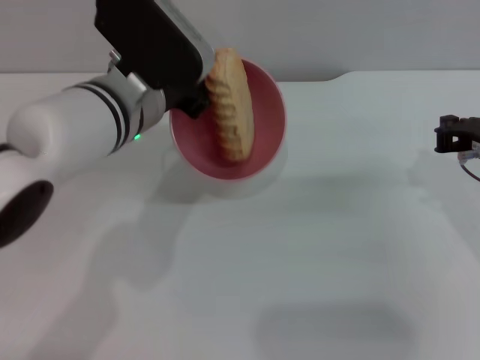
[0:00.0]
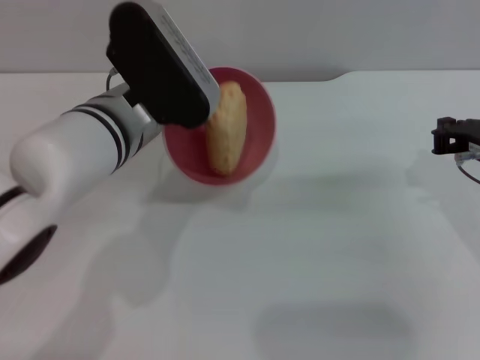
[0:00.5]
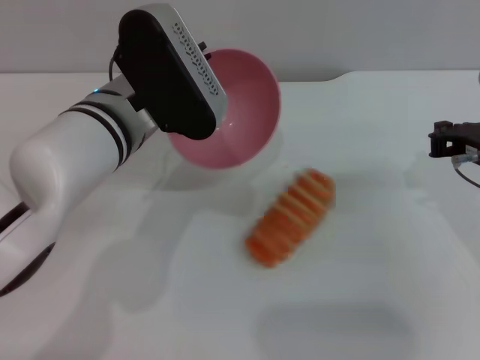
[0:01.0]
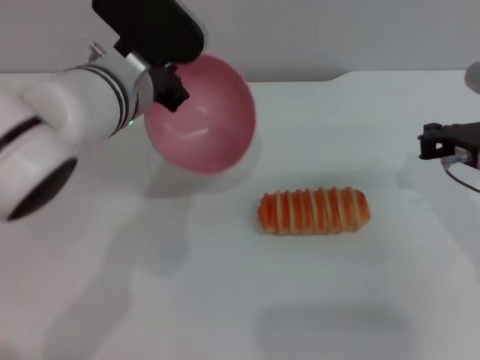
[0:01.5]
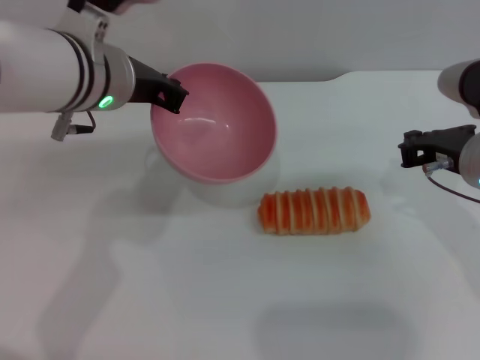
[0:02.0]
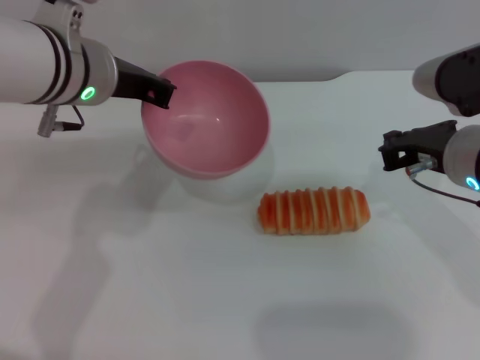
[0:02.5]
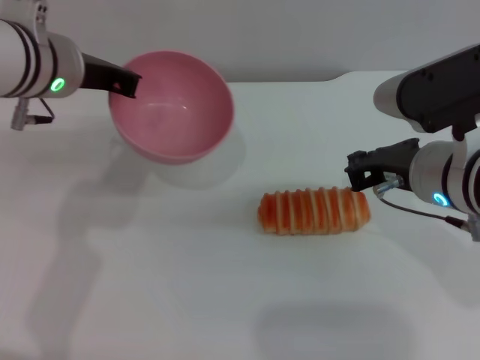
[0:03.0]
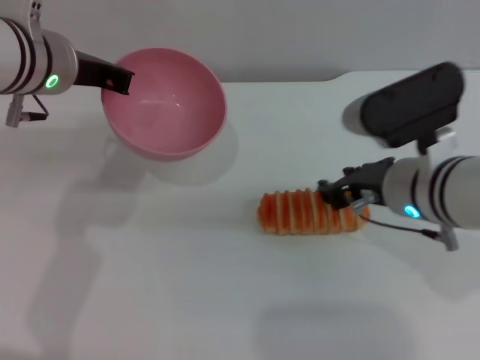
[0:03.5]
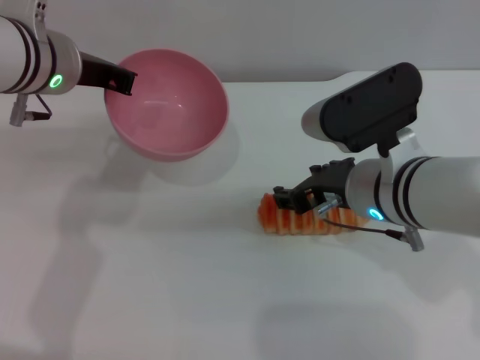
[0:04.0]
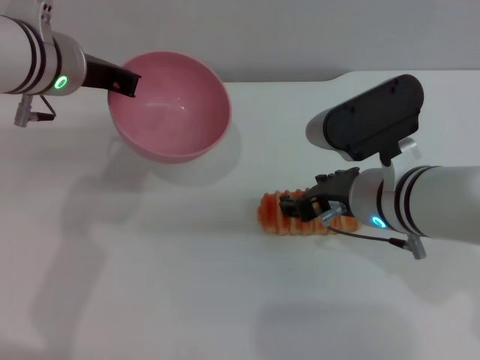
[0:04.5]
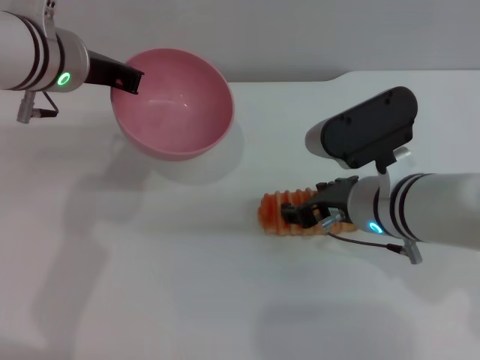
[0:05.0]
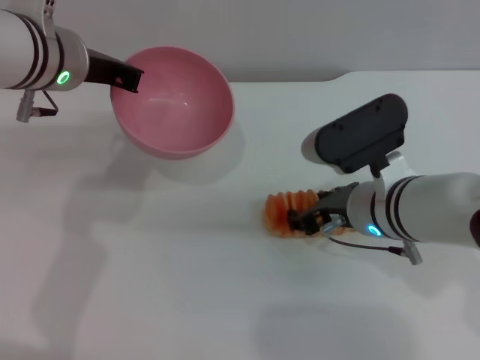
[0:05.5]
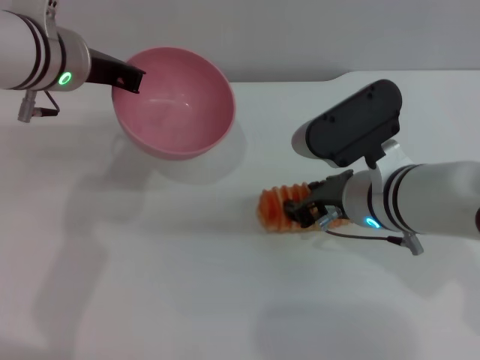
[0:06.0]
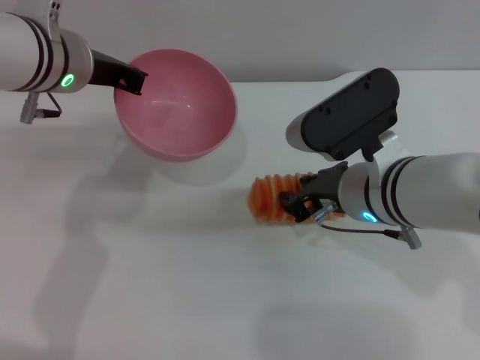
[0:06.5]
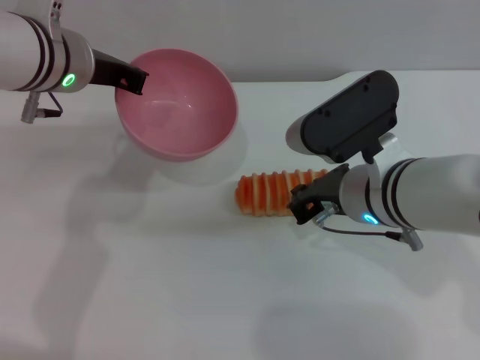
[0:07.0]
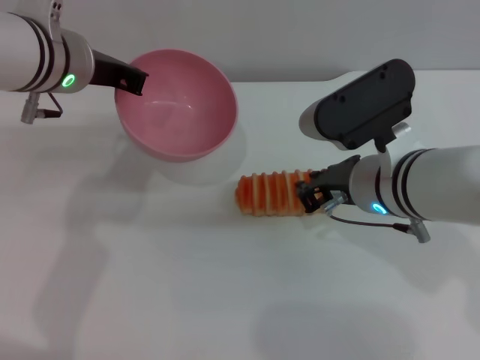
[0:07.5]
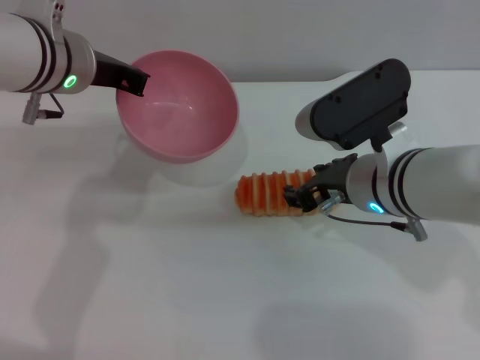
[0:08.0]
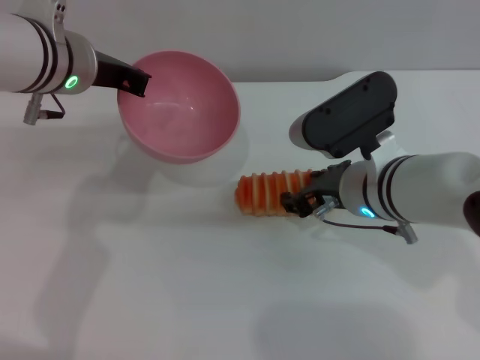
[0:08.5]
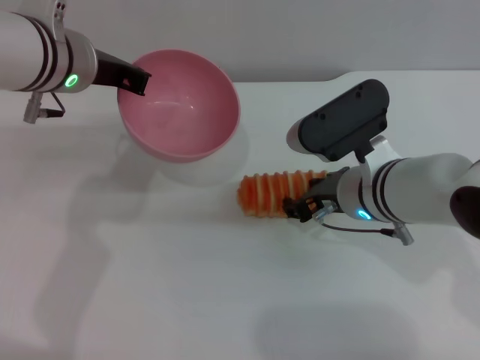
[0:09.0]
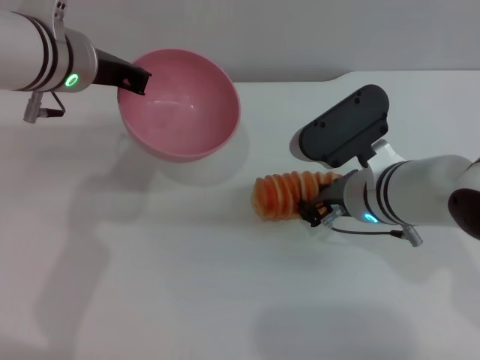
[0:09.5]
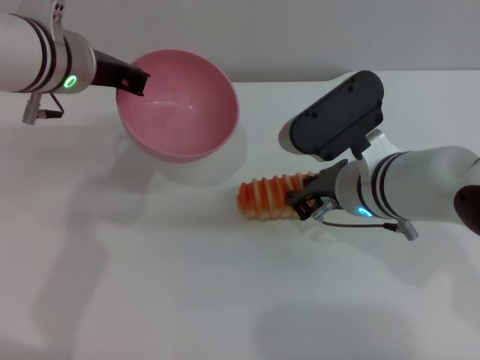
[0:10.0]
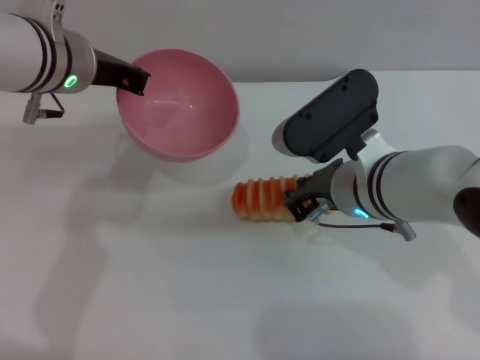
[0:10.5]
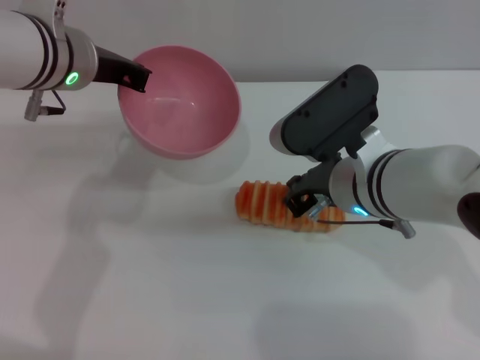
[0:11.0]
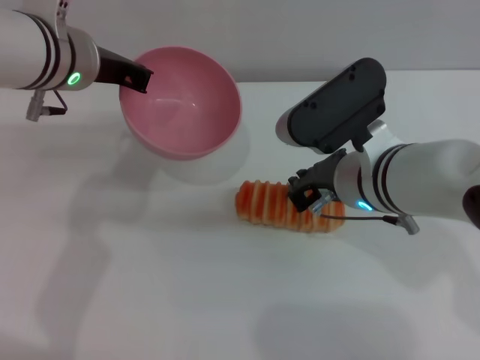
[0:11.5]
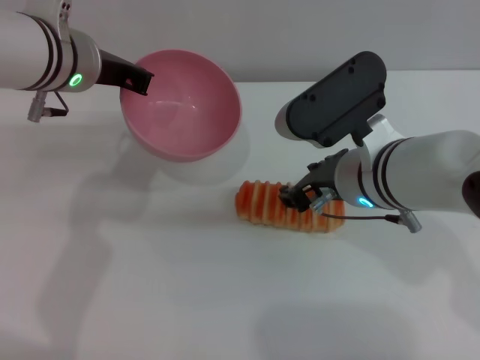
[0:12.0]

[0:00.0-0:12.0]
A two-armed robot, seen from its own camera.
Task of the whole recording: put the bread into the pink bowl and pour it out repeatedly.
2.0 to 4.0 s: The left gripper changes place by about 5 cm. Meanwhile the right gripper goes roughly 10 cm to the left, and opens up.
4.0 to 6.0 s: The grippers move only a little.
6.0 to 8.0 s: The right gripper closes and opens again.
8.0 to 10.0 s: The grippers stay close to where they were, moving slightly.
10.0 to 12.0 s: The right gripper closes, then opens again.

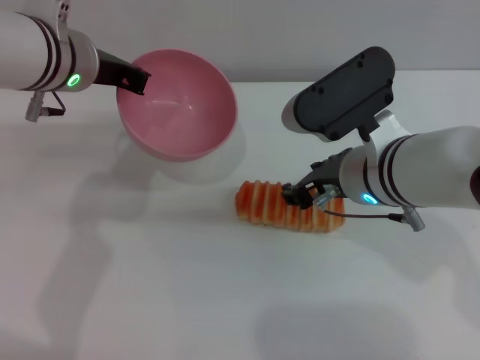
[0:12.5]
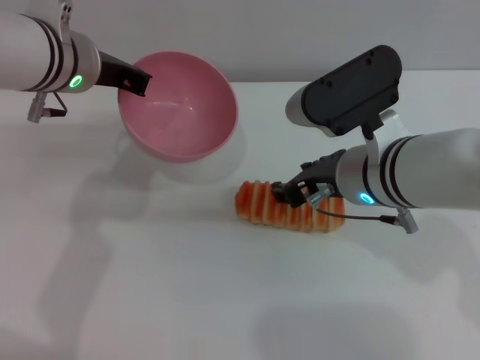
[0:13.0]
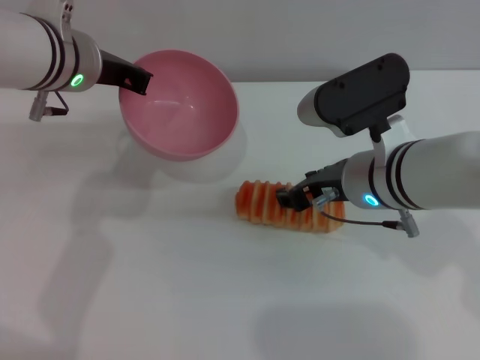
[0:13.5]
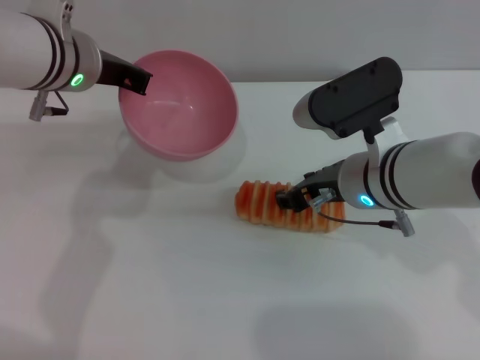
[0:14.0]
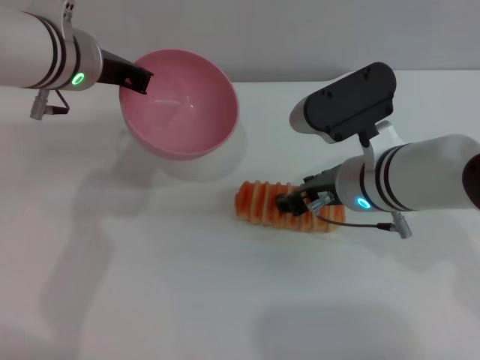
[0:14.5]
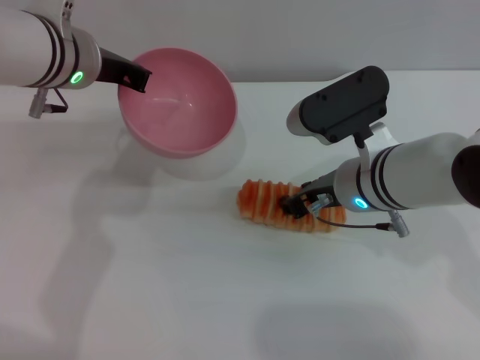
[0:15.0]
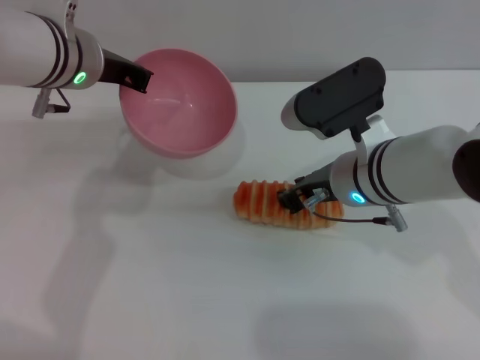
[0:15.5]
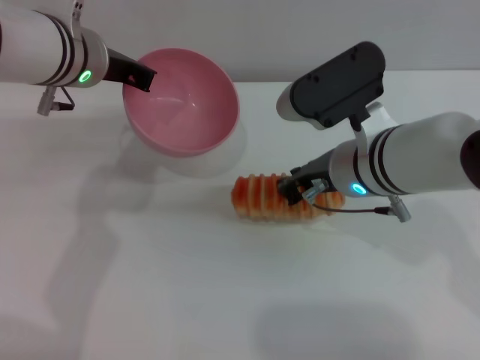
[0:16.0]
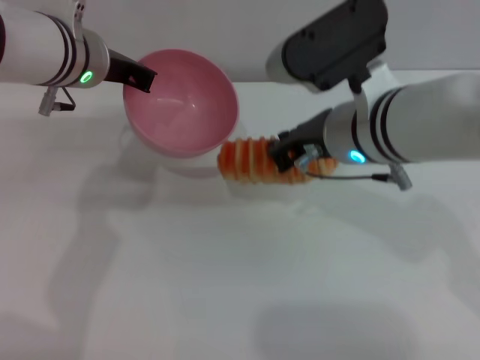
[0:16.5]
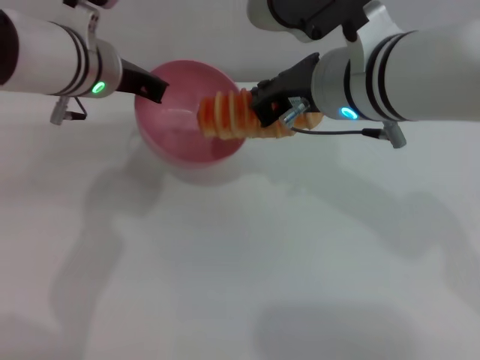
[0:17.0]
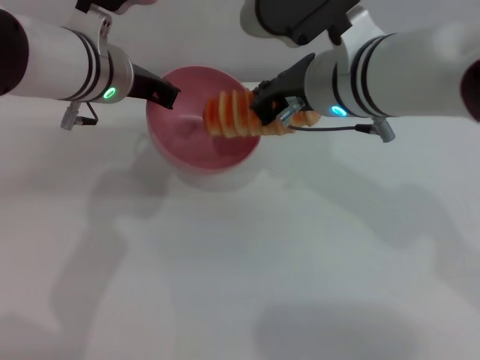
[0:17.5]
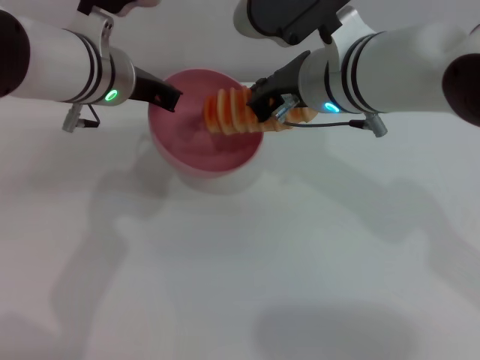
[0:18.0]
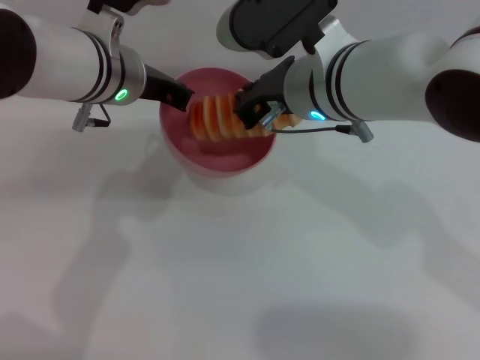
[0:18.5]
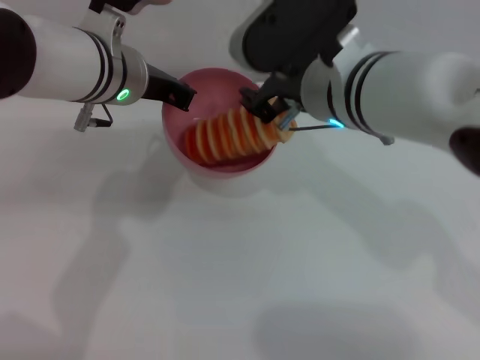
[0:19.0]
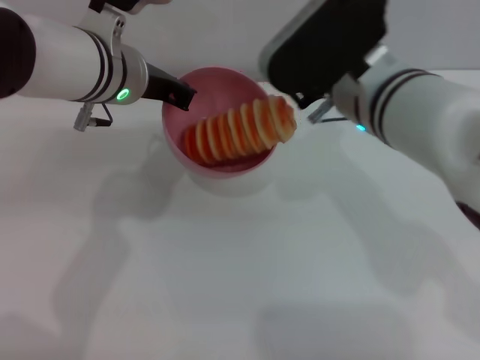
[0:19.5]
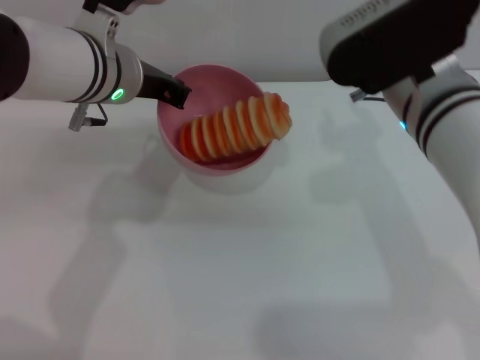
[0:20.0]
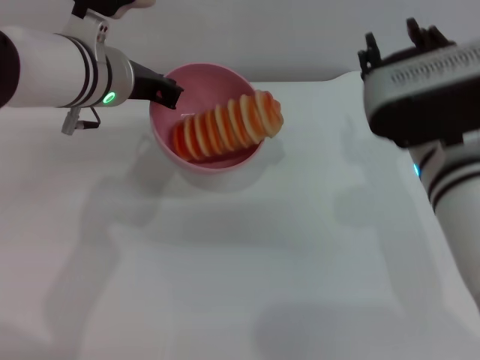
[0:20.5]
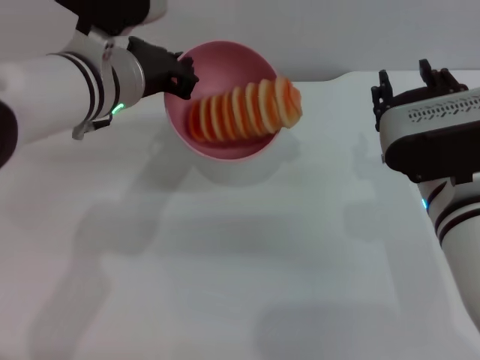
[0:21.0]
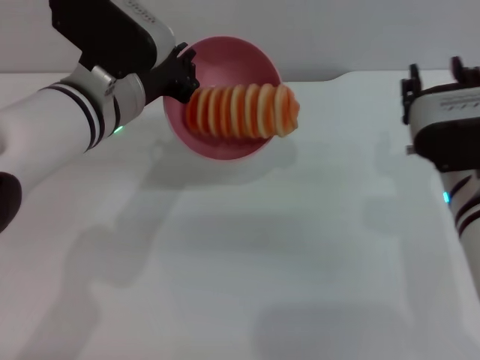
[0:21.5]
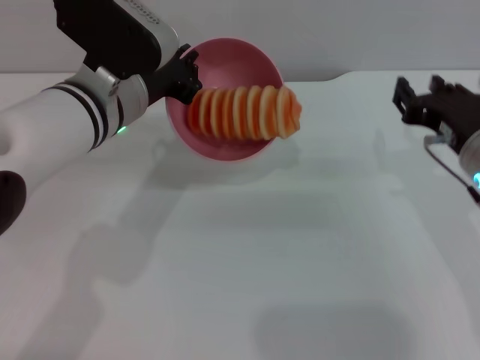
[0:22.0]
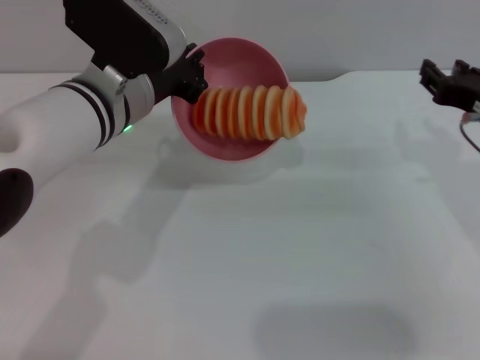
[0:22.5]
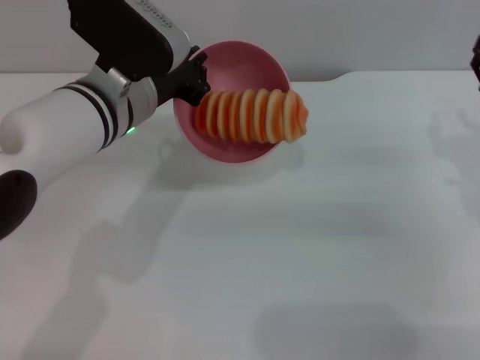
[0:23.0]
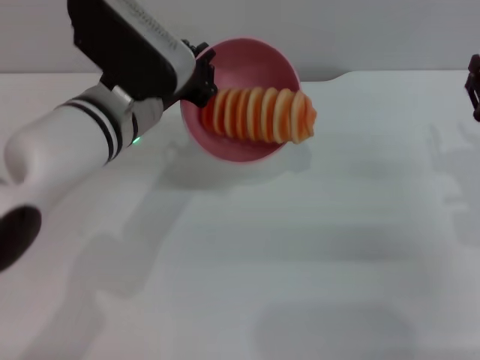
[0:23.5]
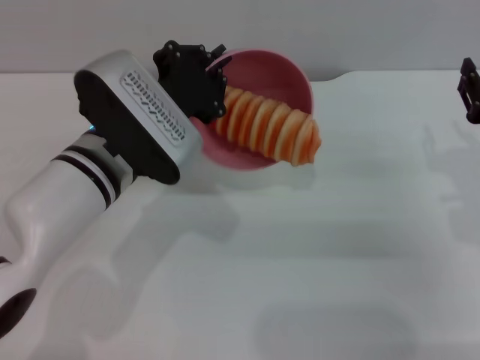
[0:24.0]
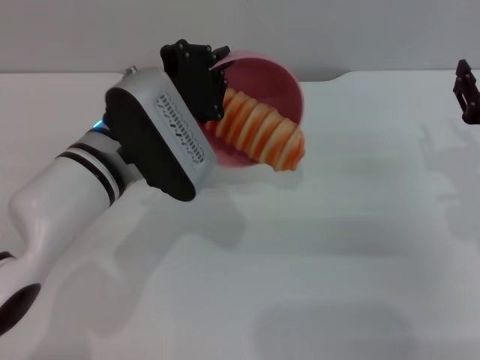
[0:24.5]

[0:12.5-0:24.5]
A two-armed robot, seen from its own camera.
Task of the whole recording: put the bread into the pink bowl and pour it out repeatedly.
Step, 12.5 to 16.0 s: Pick up the bread with the right gripper.
Step, 16.5 to 19.5 s: Place the bread into the bowl.
12.5 to 14.5 s: There are only small adjustments of the grippers.
14.5 to 16.5 s: The right gripper moves upward, roughly 5 cm, and closes.
18.5 to 20.5 s: The right gripper travels to the right and backward by about 10 cm, and opens.
20.5 to 22.5 s: The right gripper moves to the right, roughly 10 cm.
22.5 to 24.5 s: The left gripper changes place by roughly 5 cm. Meanwhile the right gripper shifts by roughly 5 cm.

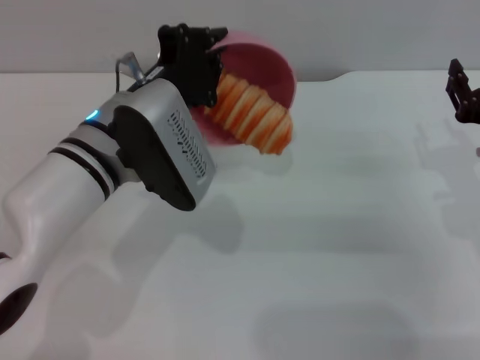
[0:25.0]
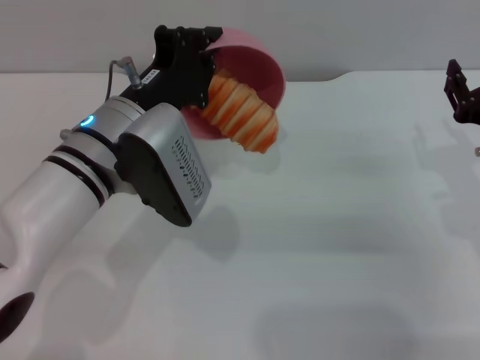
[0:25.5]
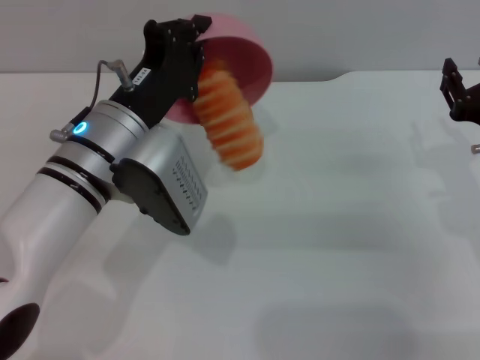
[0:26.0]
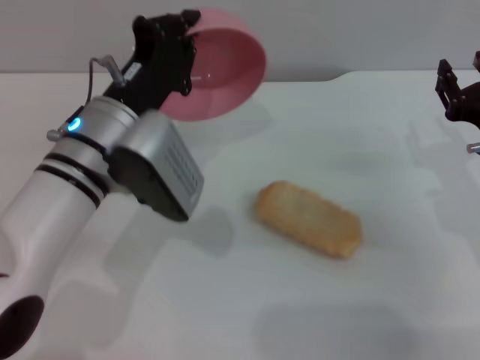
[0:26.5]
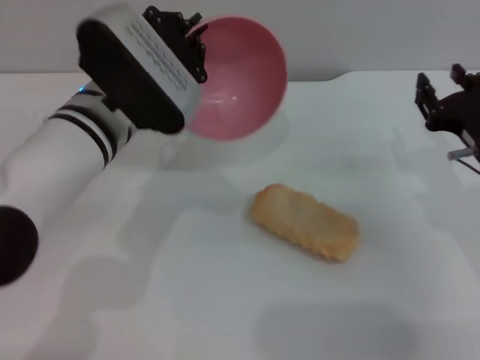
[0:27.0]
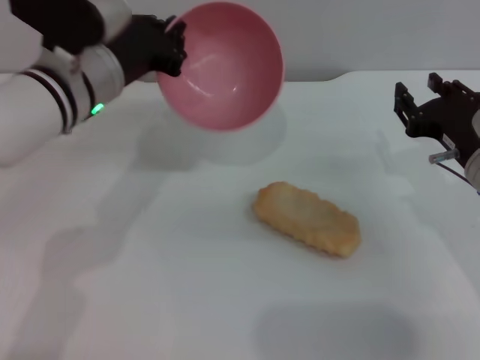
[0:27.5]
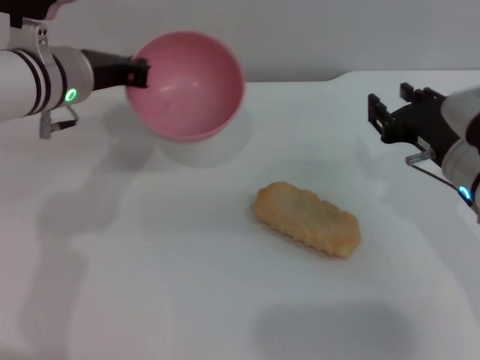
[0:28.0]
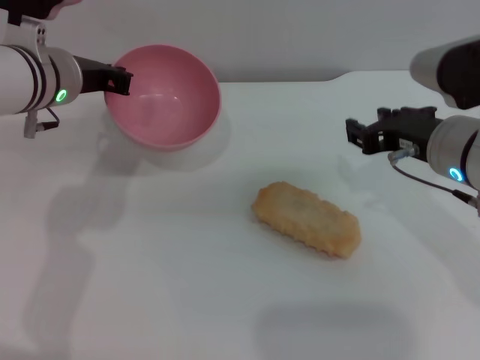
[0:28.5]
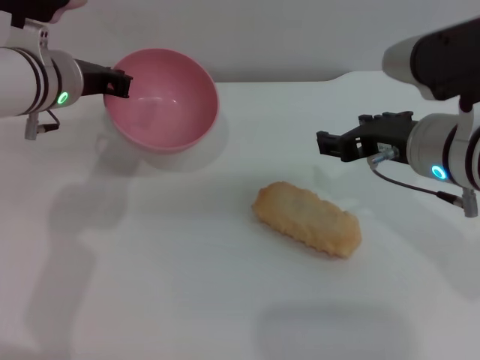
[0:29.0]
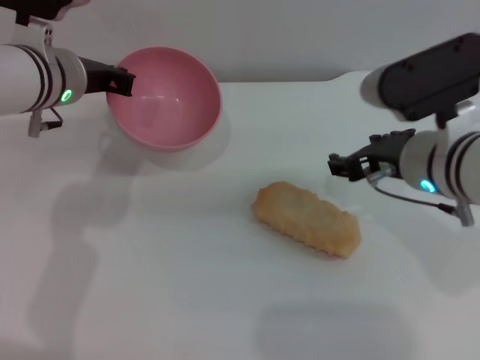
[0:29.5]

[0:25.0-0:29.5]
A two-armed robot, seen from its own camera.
Task of the whole recording: put the bread into the pink bowl and pour it out repeatedly.
27.0 to 29.5 s: The right gripper goes approximately 10 cm to the left, while the left gripper shifts some 10 cm to the left and forward.
